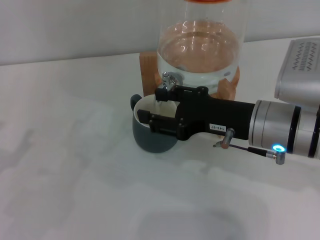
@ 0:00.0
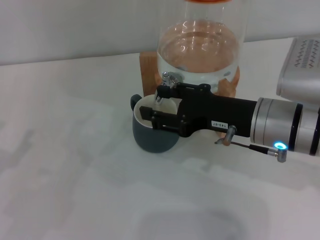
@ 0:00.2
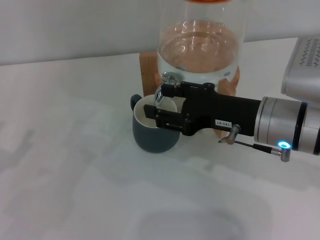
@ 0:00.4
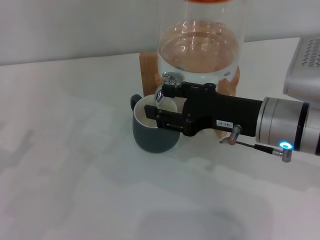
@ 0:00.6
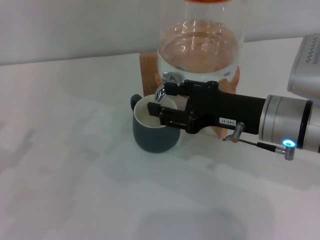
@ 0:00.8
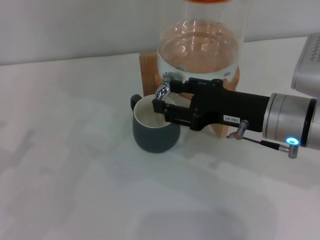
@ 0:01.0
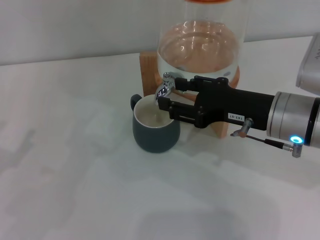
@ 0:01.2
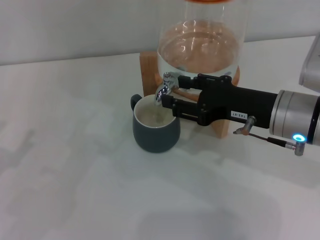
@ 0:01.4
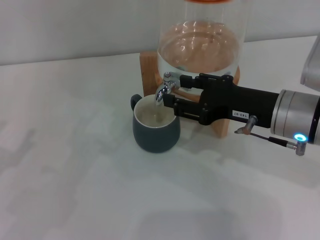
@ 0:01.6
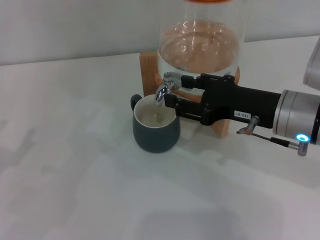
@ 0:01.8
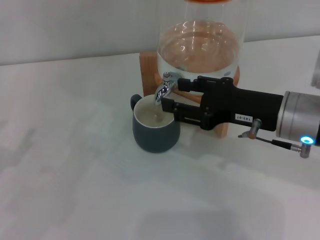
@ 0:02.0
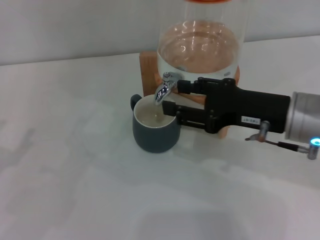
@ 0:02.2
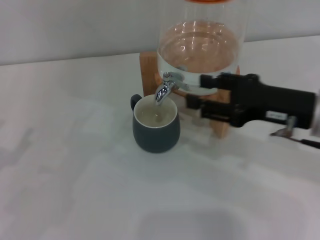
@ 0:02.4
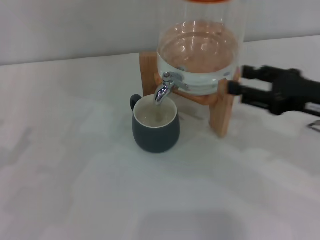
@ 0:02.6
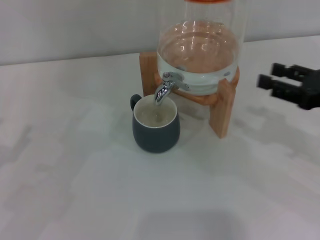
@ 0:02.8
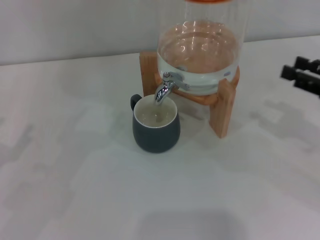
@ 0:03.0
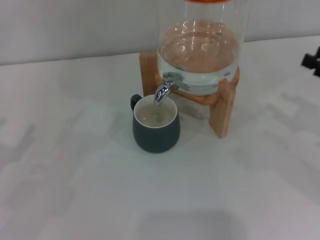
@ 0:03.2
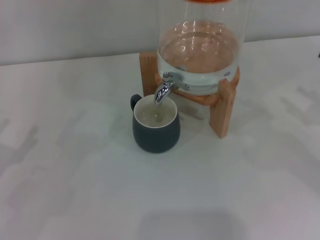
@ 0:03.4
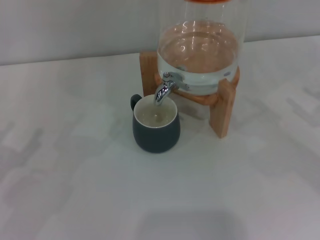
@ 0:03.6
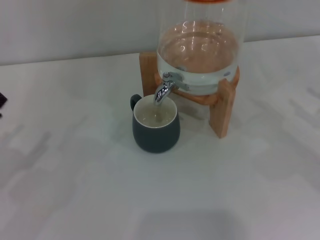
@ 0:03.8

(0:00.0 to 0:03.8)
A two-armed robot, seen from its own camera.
Task of the whole recording: the left gripper pick up the black cup and place it horizontally under the faucet, the right gripper turn on the faucet to fill the cup, and then turn off the faucet.
Step, 0:00.0 - 0:02.2: Close the dispenser valve with the right gripper.
0:00.0 - 0:01.2: There are only small adjustments of the grippers.
0:01.2 - 0:02.6: The right gripper heads to the right, covering about 10 cm.
0:02.6 - 0:03.8: The right gripper moves to the right, approximately 15 cm.

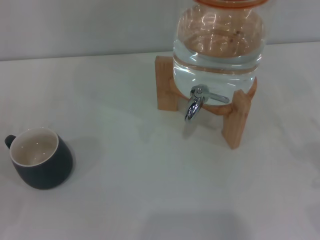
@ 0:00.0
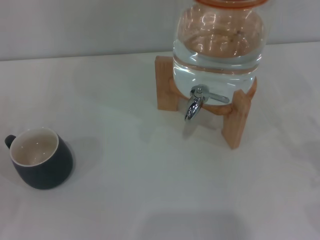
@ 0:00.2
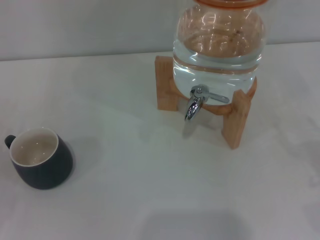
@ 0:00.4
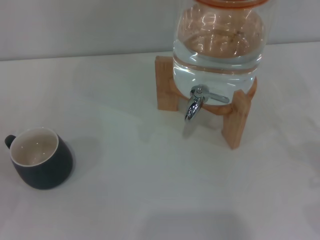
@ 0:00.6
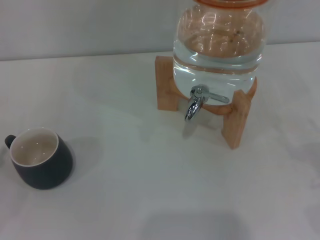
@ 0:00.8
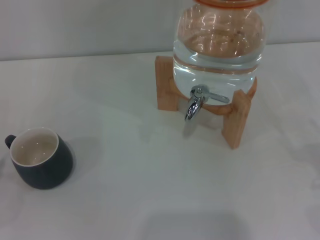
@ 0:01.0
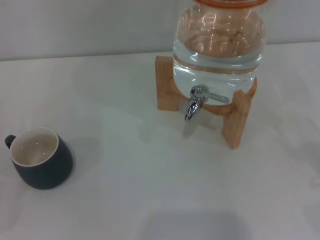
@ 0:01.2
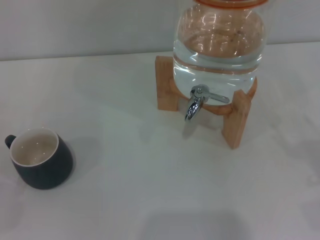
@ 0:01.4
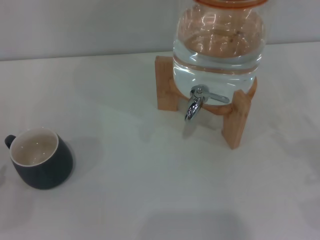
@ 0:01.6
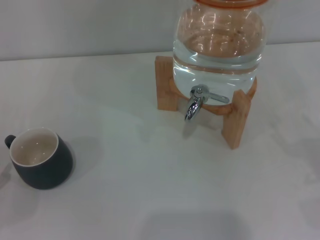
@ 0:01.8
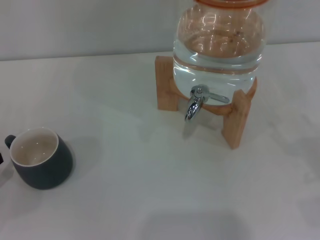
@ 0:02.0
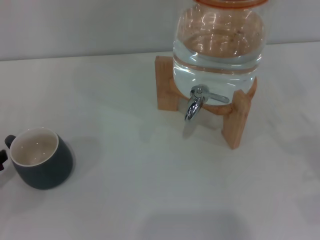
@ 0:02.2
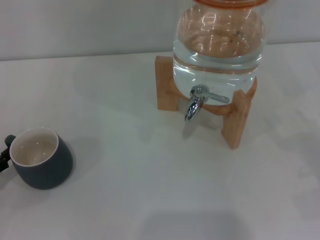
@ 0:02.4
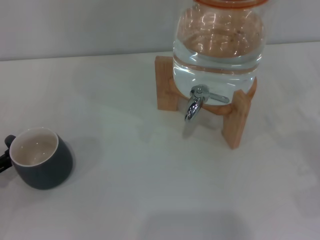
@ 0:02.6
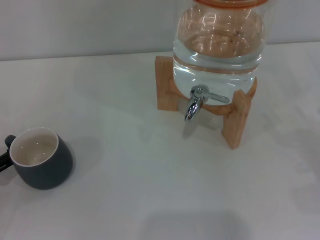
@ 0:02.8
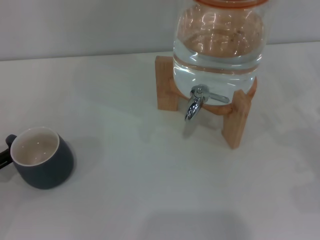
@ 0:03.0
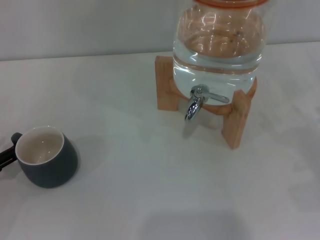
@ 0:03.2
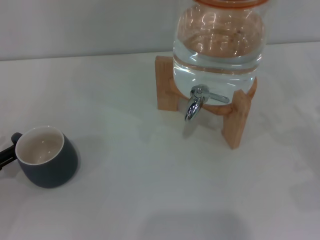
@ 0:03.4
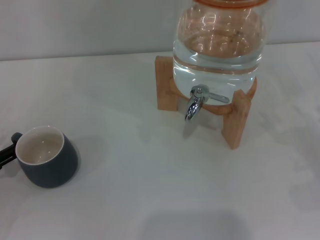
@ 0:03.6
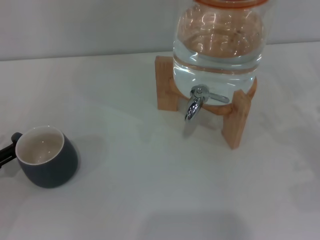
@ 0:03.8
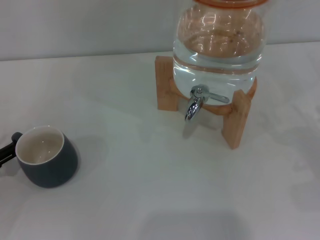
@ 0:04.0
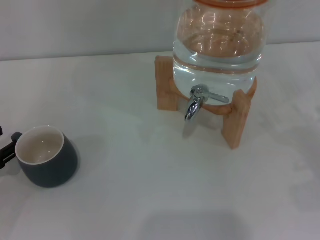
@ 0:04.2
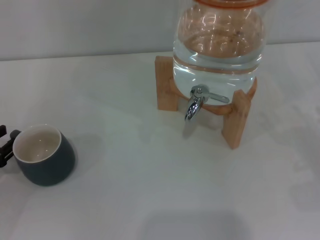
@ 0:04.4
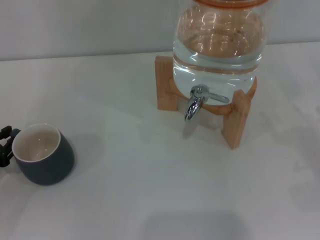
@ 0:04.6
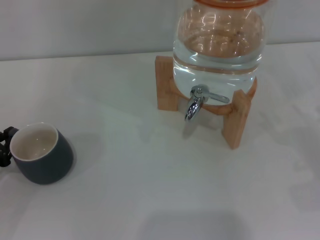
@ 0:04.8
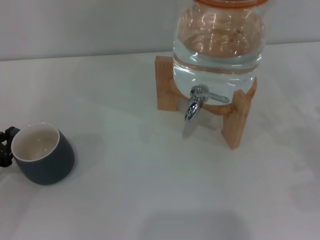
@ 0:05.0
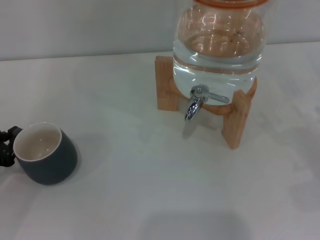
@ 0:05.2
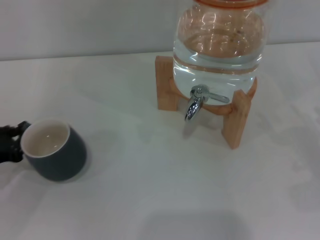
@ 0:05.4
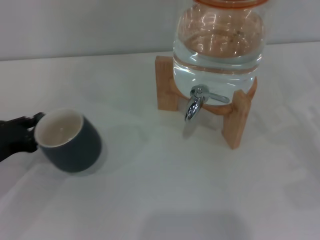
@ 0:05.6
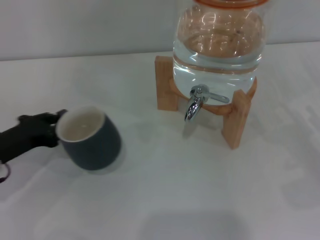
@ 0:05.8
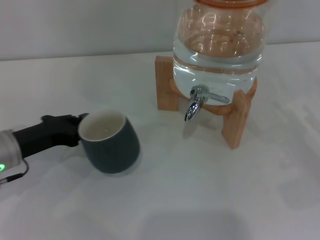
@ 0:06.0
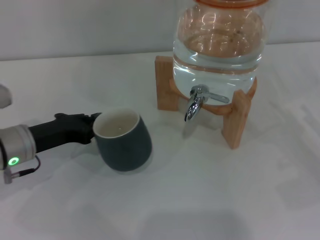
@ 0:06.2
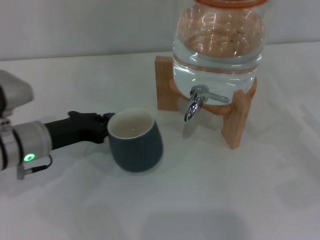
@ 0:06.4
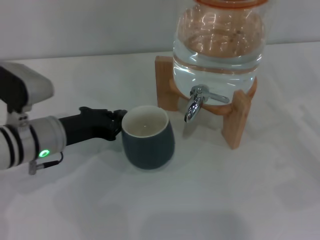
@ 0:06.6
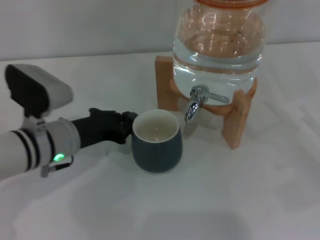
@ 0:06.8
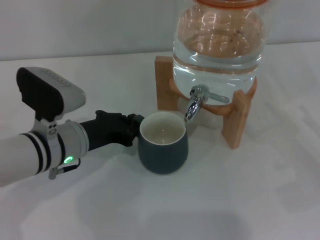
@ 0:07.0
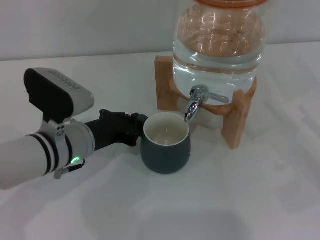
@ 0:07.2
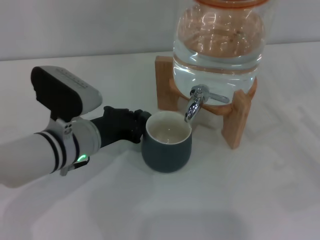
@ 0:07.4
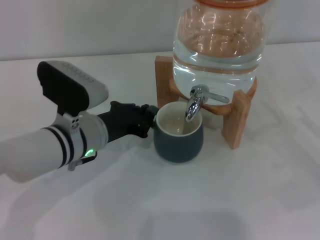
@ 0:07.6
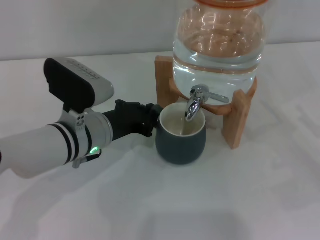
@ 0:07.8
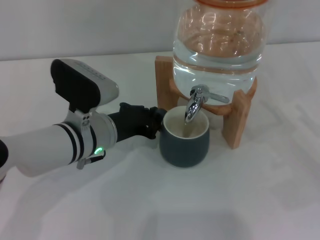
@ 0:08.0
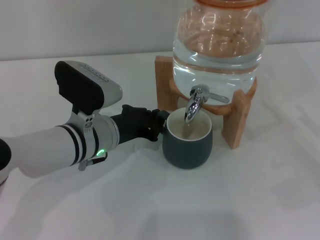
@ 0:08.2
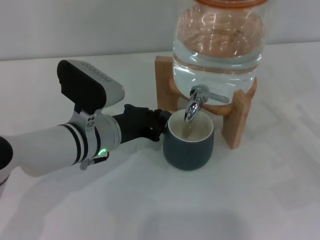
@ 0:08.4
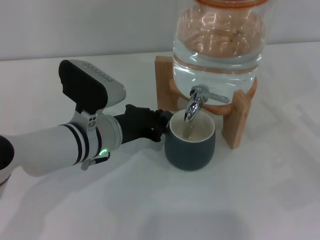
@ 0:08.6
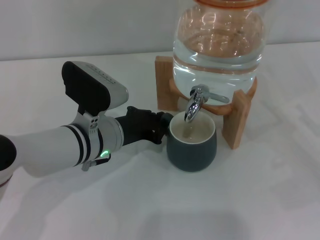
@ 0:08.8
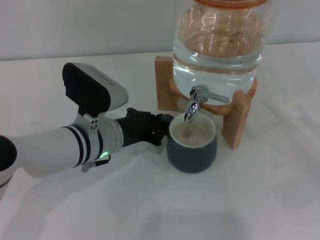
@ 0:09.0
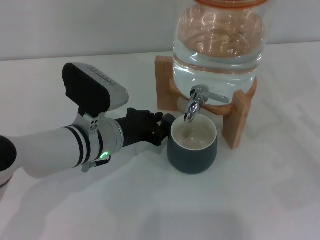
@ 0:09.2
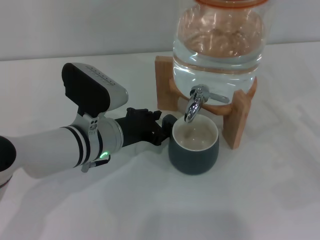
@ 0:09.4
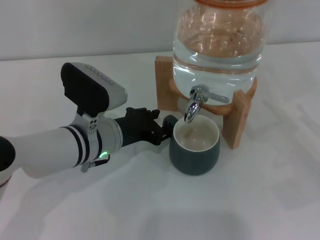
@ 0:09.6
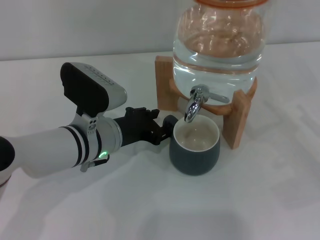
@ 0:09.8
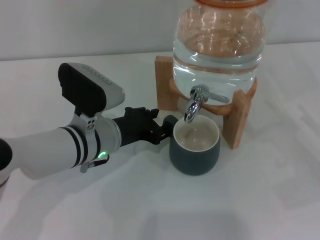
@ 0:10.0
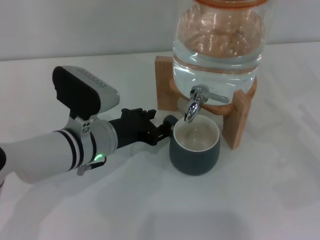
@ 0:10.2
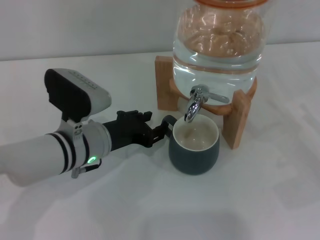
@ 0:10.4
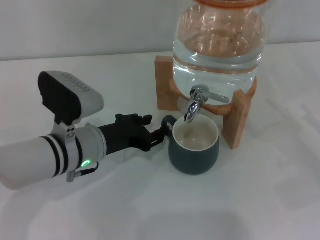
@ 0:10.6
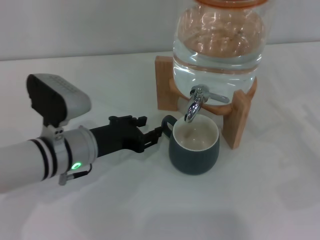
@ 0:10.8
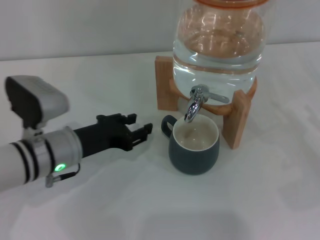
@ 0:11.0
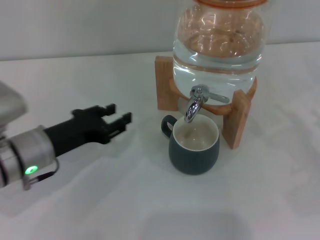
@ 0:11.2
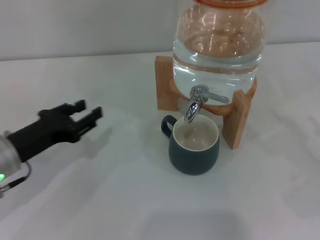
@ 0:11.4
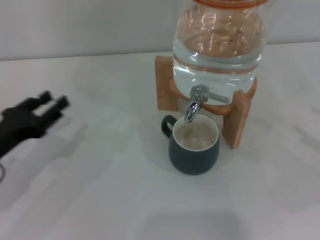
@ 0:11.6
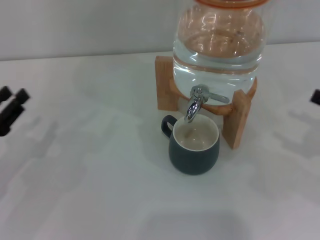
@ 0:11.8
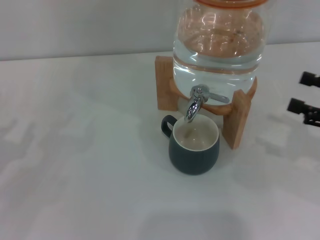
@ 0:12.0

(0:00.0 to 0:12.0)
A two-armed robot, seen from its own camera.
Task of the whole recording: the left gripper pick up the black cup and place it horizontally under the faucet, the right gripper turn on the faucet to fill the cup, and then turn off the faucet.
Step, 0:00.0 - 0:11.0: Move the cup beneath the water dispenser nozzle with the left gripper.
0:03.0 - 0:04.4: The grippers stay close to where they were, moving slightly.
0:04.4 - 0:06.0: The left gripper goes approximately 10 cm to the right, and closes.
0:06.0 - 0:07.6: The left gripper travels to the right by some 15 cm.
0:07.6 - 0:09.0: The grippers stay close to where they were, moving slightly.
0:09.0 - 0:10.4: The left gripper opens.
0:10.4 - 0:12.0: The right gripper moves upward, some 5 cm; the left gripper heads to the left, covering roughly 20 cm.

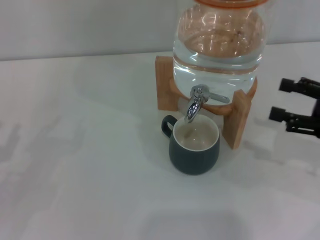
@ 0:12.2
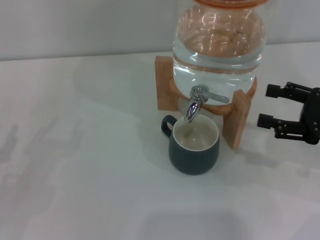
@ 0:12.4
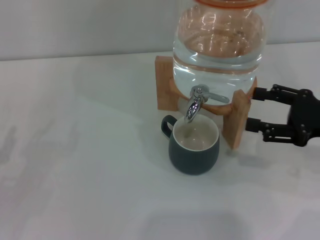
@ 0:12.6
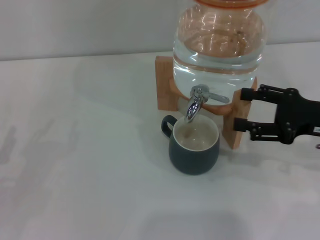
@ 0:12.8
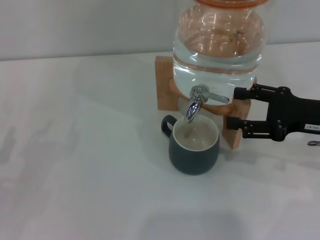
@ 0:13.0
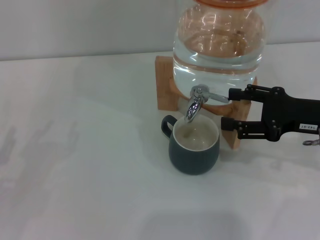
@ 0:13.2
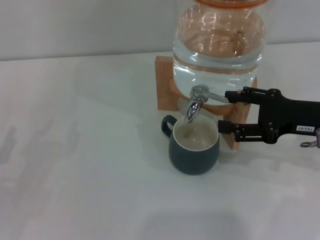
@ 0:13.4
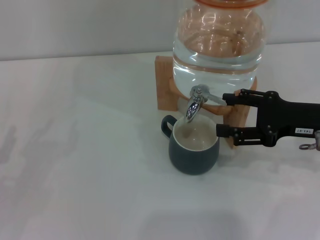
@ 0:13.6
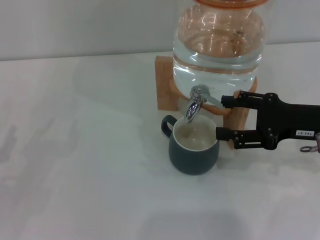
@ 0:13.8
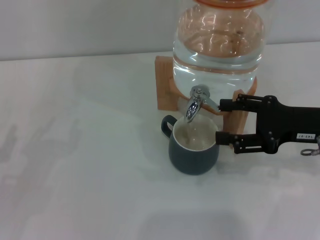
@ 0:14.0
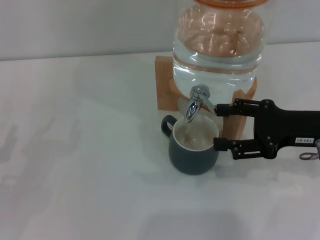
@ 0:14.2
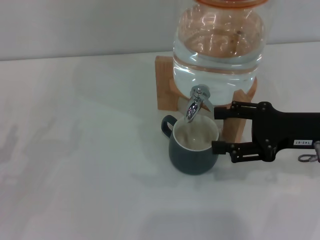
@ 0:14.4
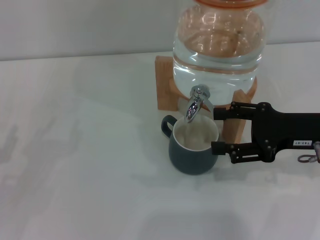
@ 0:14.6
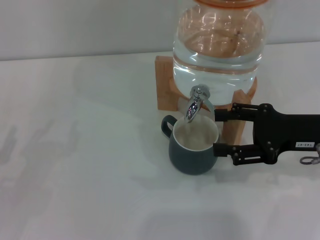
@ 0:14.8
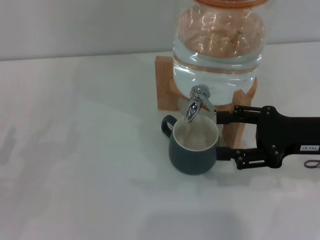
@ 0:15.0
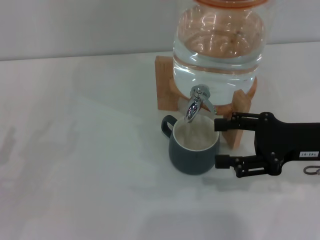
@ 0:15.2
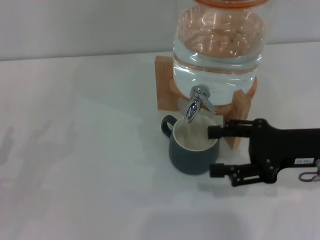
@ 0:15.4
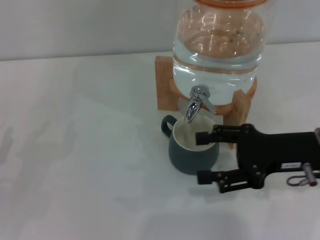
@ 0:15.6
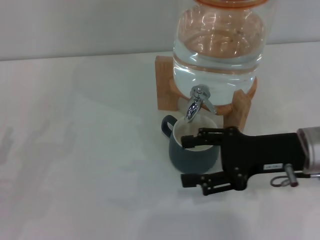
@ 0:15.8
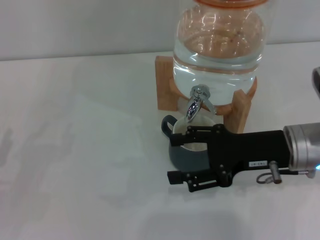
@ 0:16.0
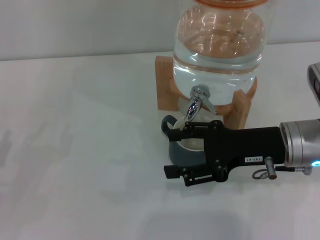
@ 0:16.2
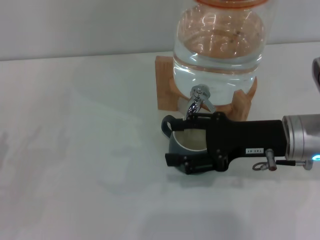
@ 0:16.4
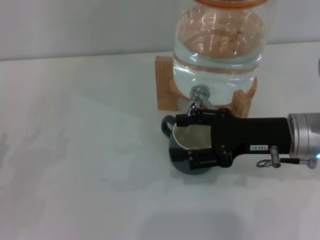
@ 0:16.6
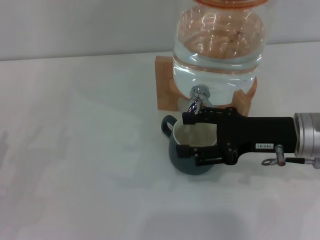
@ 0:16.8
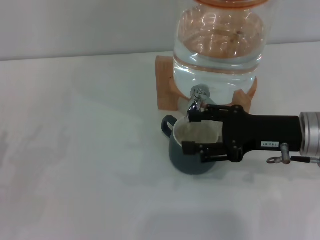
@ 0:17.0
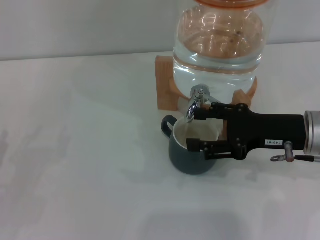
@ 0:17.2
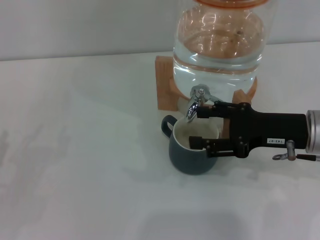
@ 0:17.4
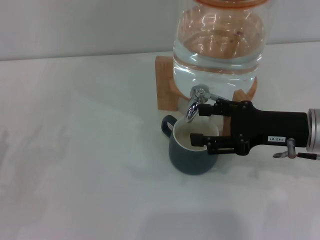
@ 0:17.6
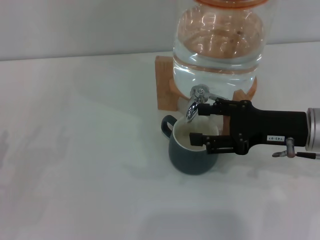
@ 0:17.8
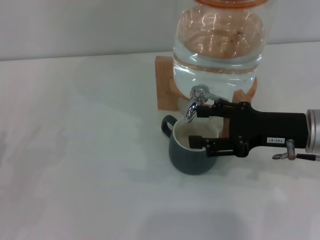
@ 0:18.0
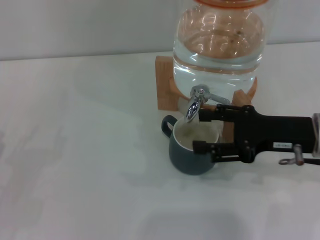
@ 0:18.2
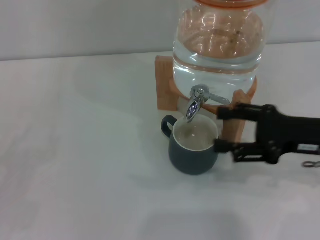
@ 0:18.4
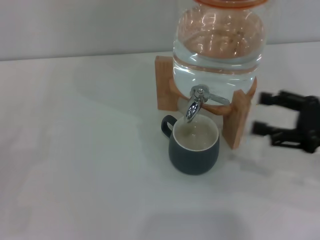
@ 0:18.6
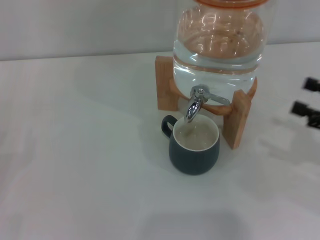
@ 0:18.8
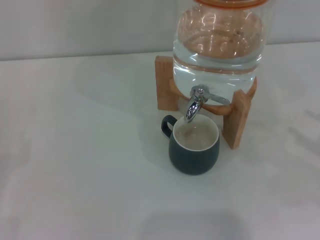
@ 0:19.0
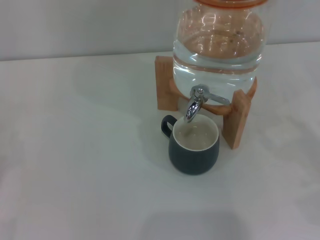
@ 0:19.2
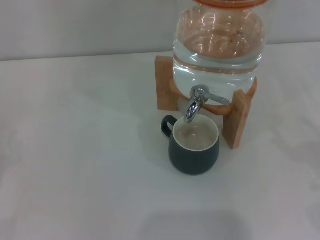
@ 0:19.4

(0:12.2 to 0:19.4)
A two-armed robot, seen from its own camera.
Task of the whole recording: the left gripper pick up the black cup and place it horizontally under the faucet, the right gripper turn on the faucet to fill the cup, and then turn off the faucet.
Step, 0:12.2 - 0:16.2: Open the dispenser valve and fill the cup with water with the right gripper.
Step, 0:16.4 - 0:18.4: Close the dispenser valve with the right gripper.
0:12.2 - 0:13.6: The right gripper goes approximately 5 cm to the left.
0:13.6 - 0:15.0: There are only small adjustments of the grippers.
0:15.0 - 0:16.6: The right gripper heads to the left, covering some 5 cm.
0:16.6 - 0:18.0: The grippers stay close to where they were, moving slightly.
0:18.0 - 0:19.4: The right gripper moves to the right and backward, approximately 20 cm, while the left gripper goes roughly 5 cm to the left.
